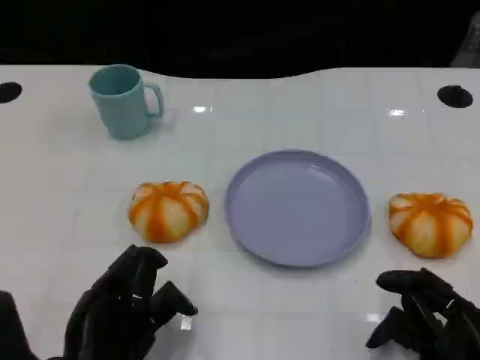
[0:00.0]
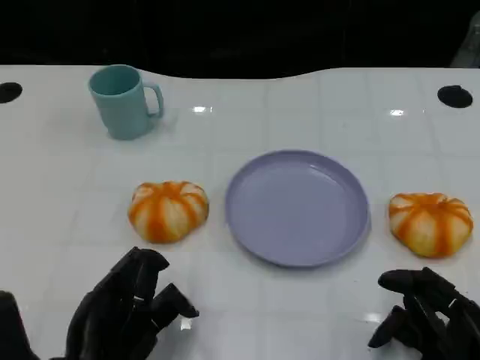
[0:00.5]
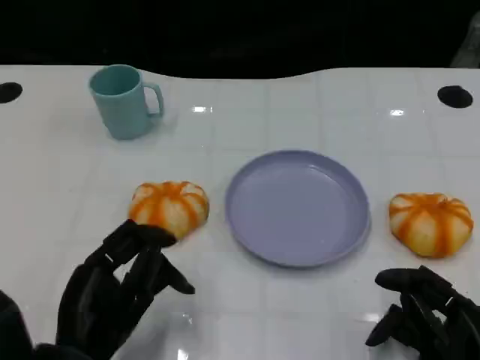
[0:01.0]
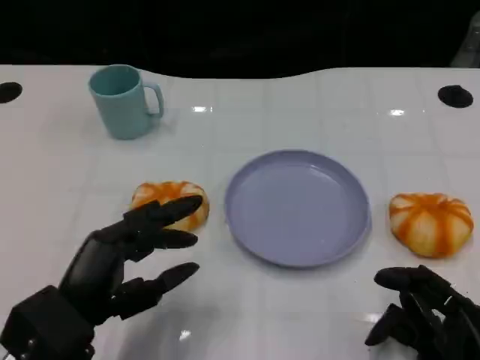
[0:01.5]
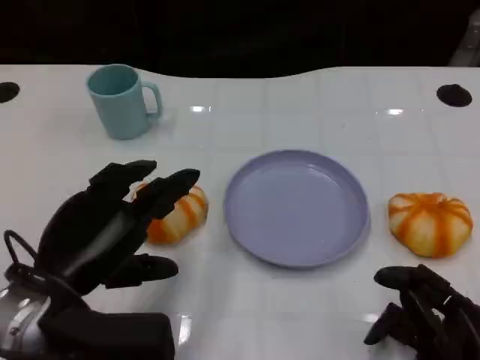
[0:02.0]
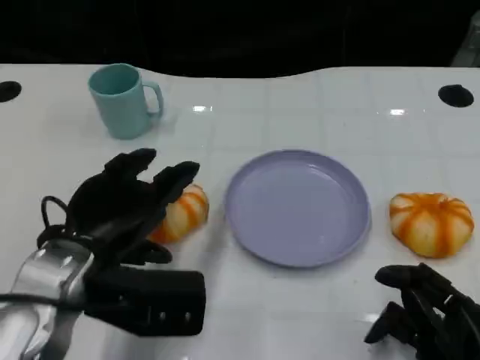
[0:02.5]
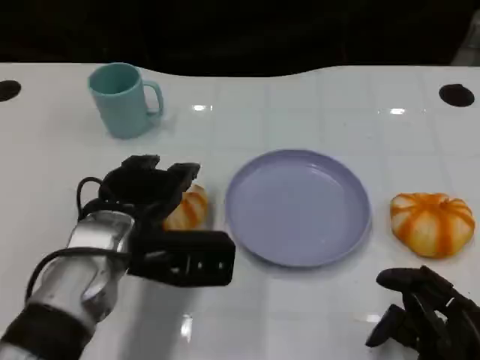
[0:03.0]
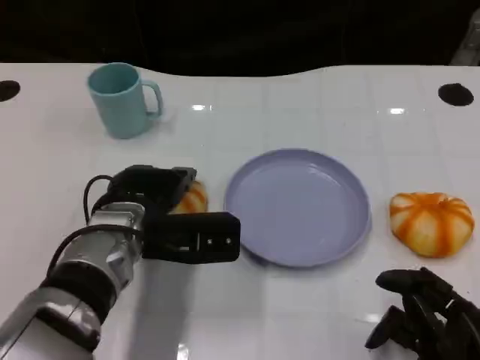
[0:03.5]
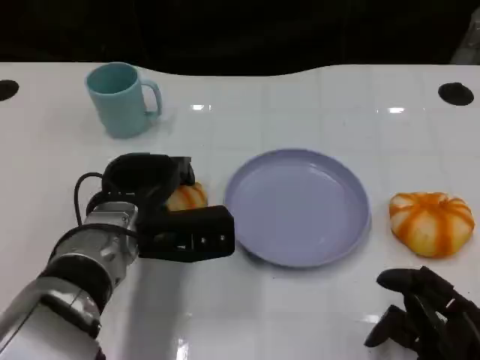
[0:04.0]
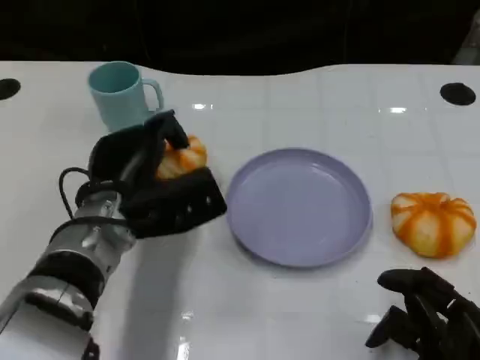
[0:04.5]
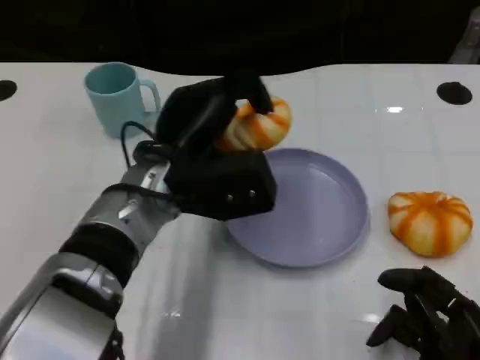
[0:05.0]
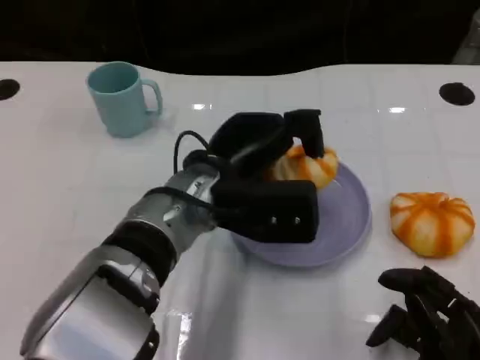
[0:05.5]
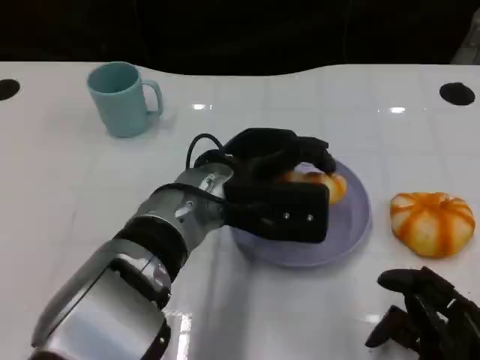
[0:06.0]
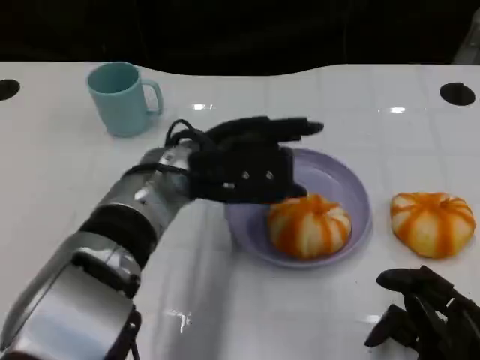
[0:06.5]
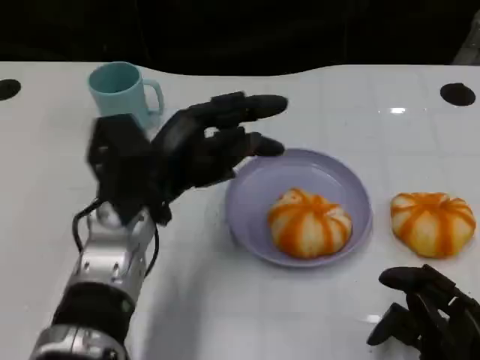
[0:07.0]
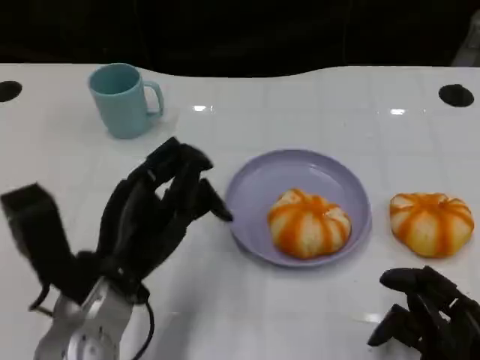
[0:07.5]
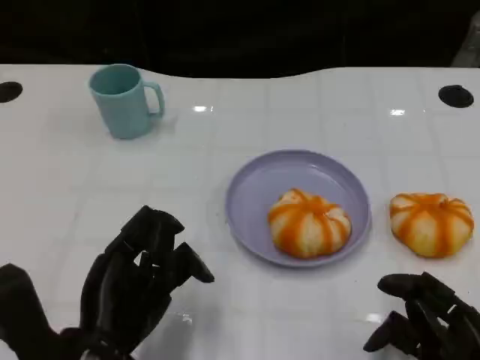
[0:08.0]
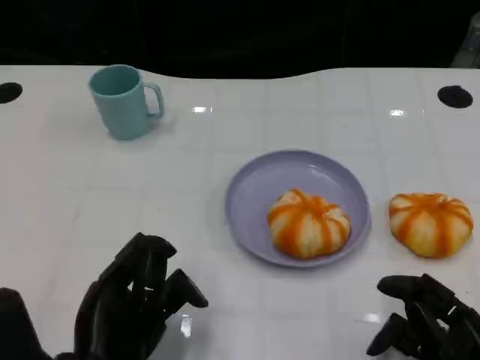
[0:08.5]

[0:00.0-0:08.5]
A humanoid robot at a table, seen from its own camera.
Task of the whole recording: Grasp the bread from the table and place it into the plate.
0:00.0 to 0:02.0: The left hand goes roughly 5 cm upward.
0:02.0 to 0:04.0: The left hand heads forward and to the right, covering roughly 10 cm.
0:04.0 to 0:06.5: The left hand is displaced upward and to the right by about 10 cm.
0:06.5 to 0:08.5: The left hand shifts approximately 20 cm backward, to the left and downward.

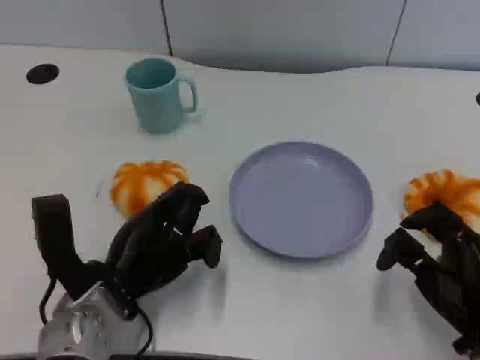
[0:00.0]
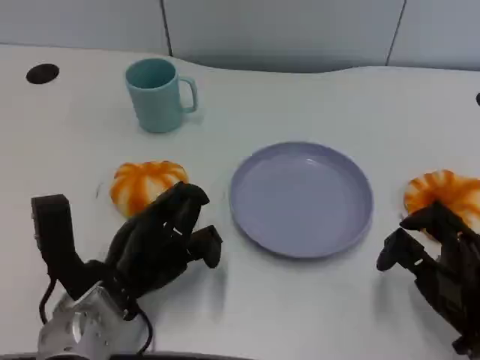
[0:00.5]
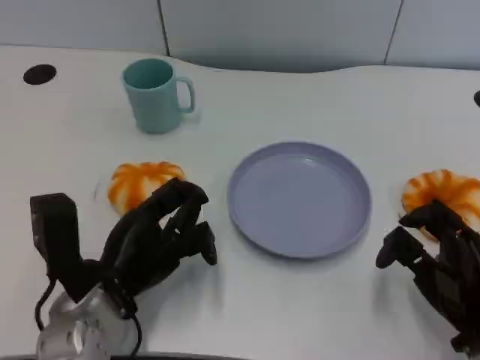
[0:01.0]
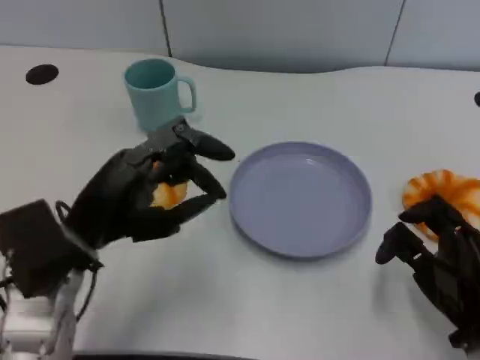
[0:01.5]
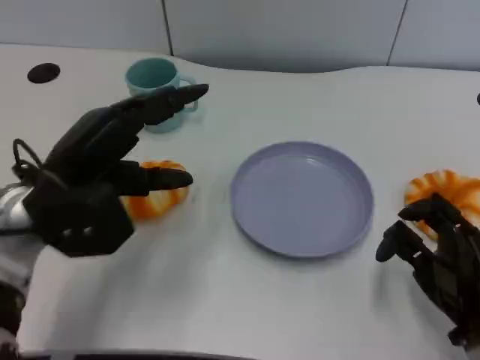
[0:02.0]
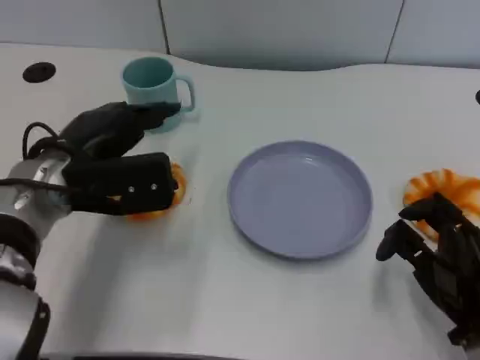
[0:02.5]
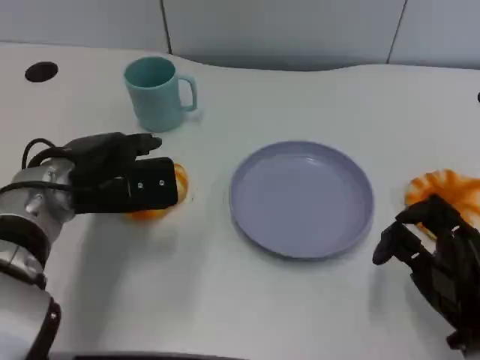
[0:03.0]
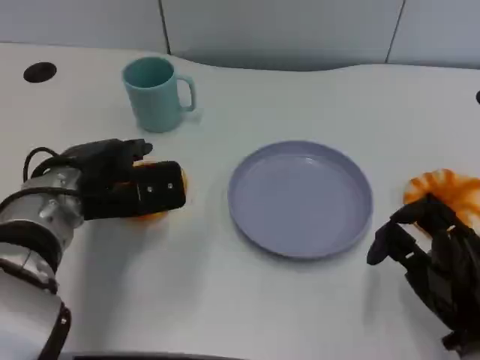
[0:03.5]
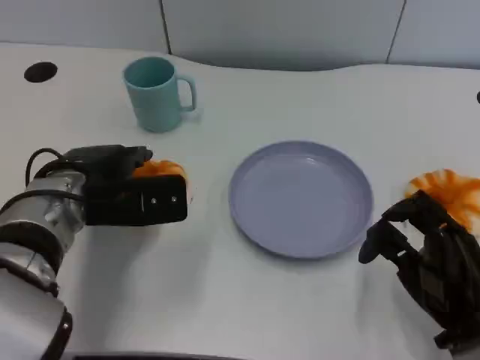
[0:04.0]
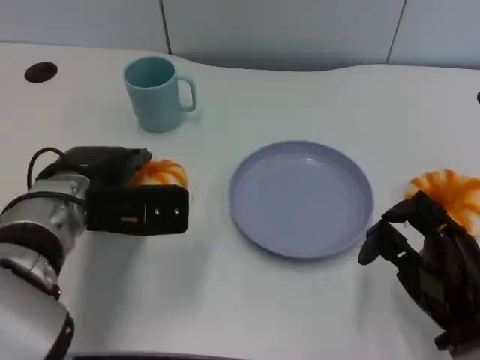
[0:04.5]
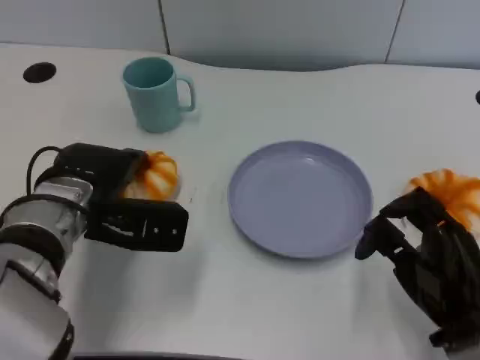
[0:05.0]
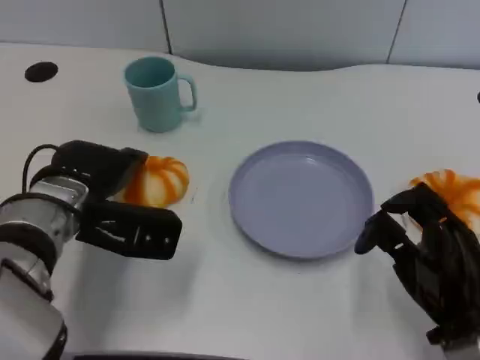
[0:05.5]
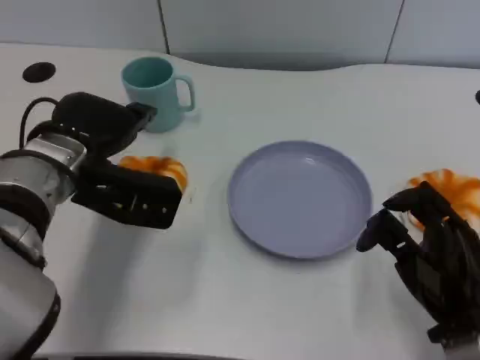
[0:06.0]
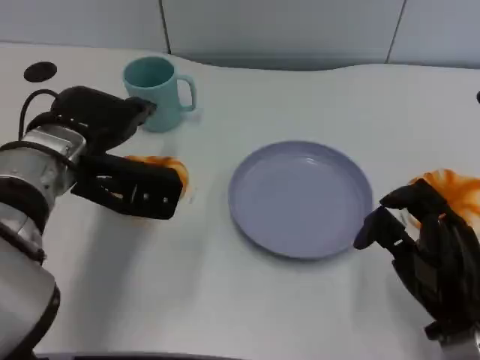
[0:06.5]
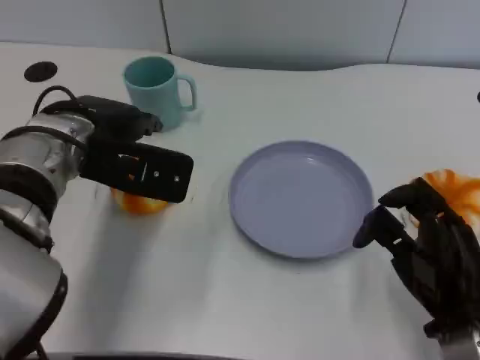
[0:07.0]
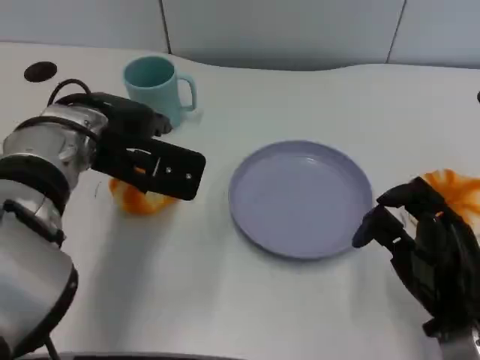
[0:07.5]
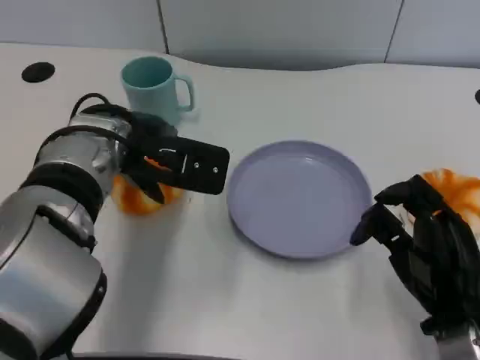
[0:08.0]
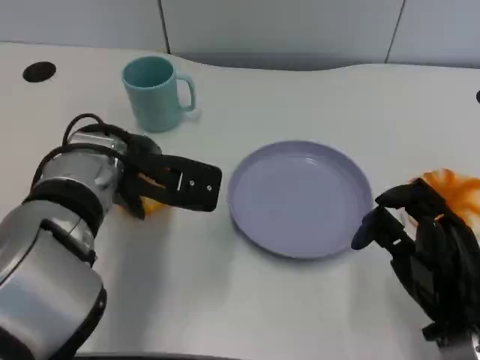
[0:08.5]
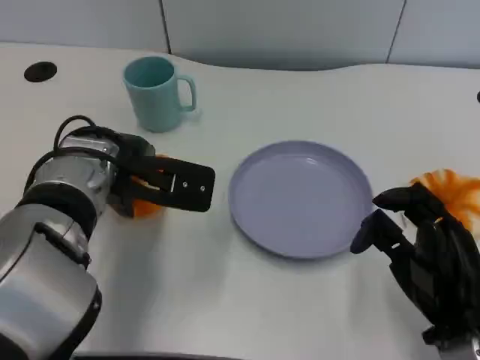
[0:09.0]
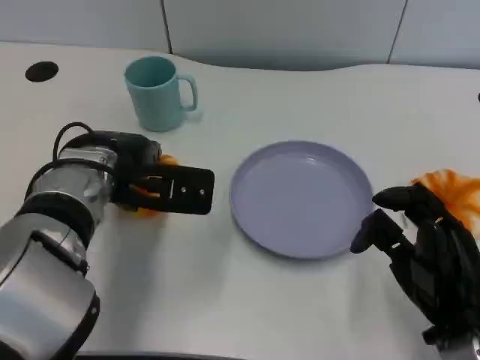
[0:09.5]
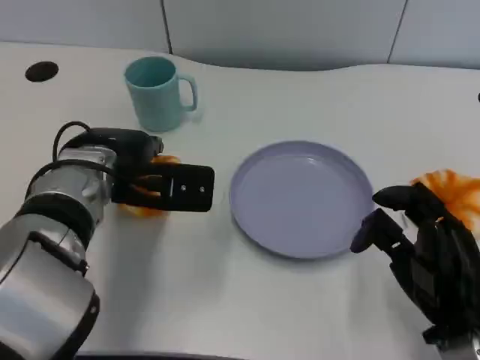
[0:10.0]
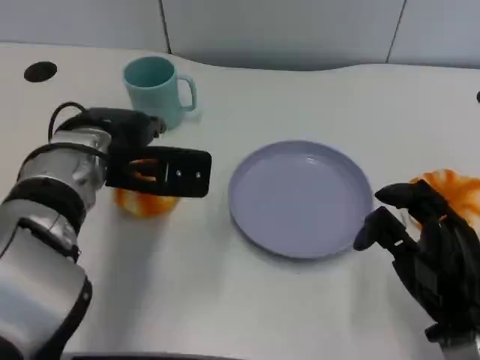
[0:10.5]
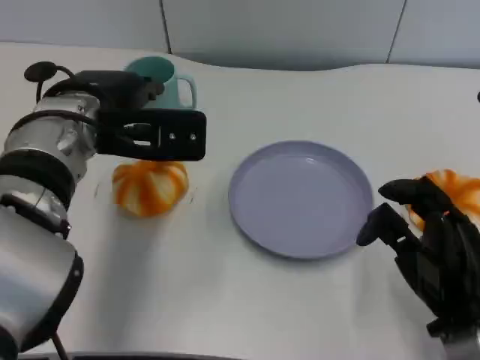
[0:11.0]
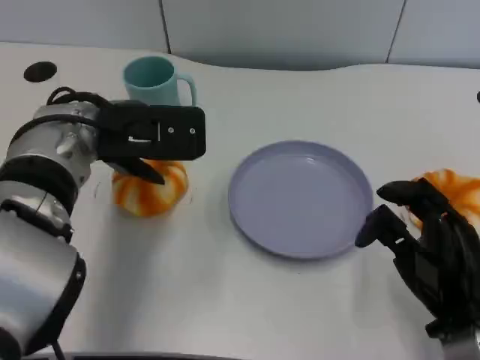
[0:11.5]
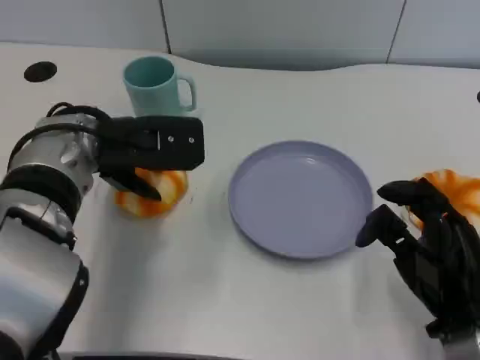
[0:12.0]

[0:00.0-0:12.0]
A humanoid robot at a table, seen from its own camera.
Task of the whole recording: Grasp the bread from the table and place it into the plate.
0:00.0 to 0:02.0: The left hand moves upward, approximately 10 cm.
0:08.0 to 0:12.0: The hands make only small movements.

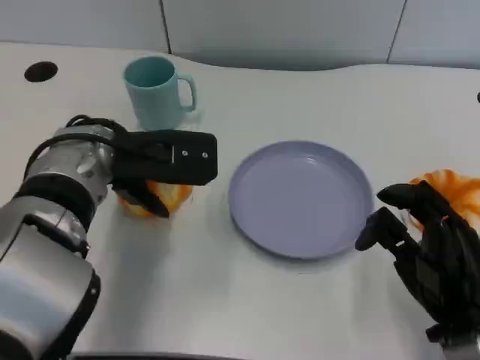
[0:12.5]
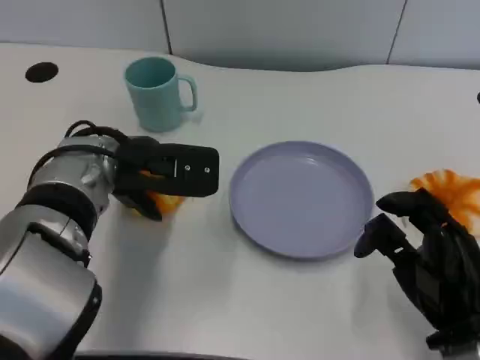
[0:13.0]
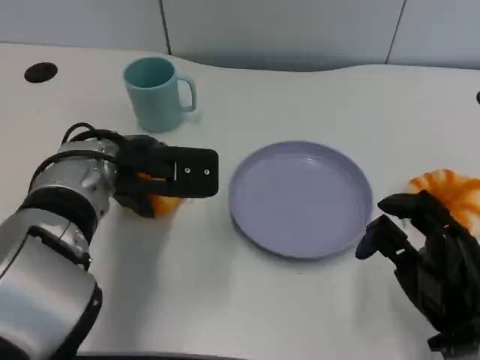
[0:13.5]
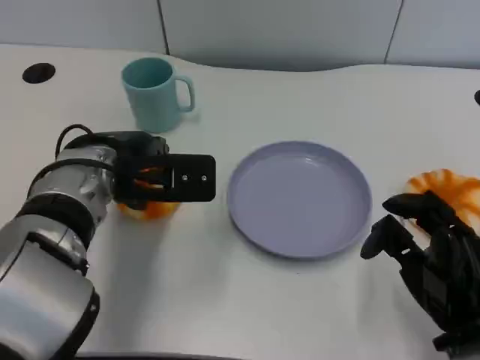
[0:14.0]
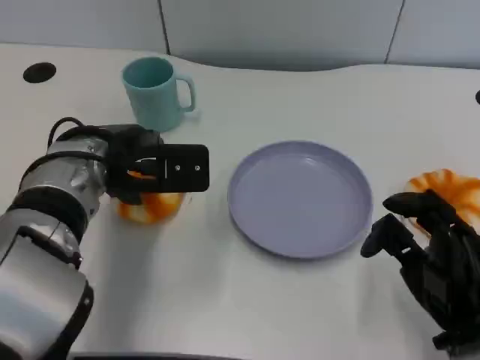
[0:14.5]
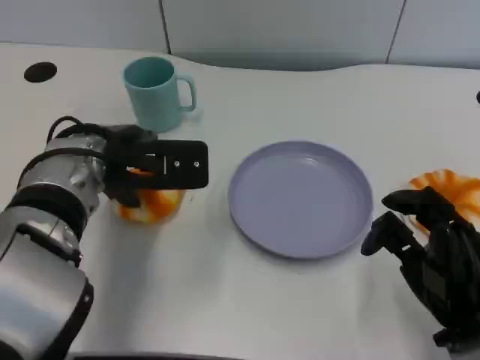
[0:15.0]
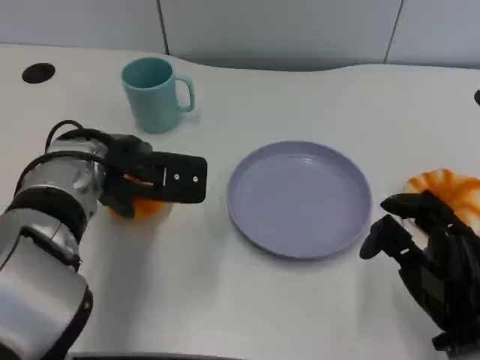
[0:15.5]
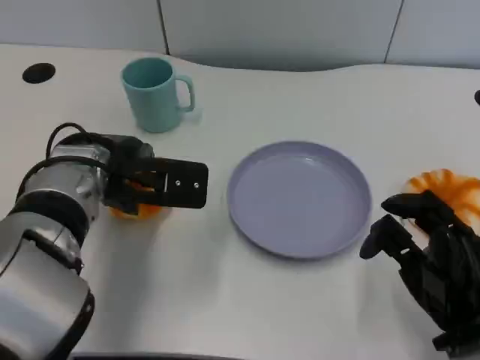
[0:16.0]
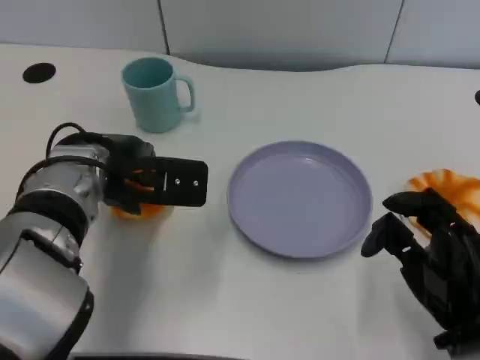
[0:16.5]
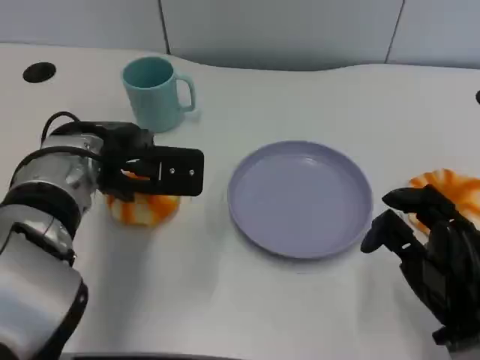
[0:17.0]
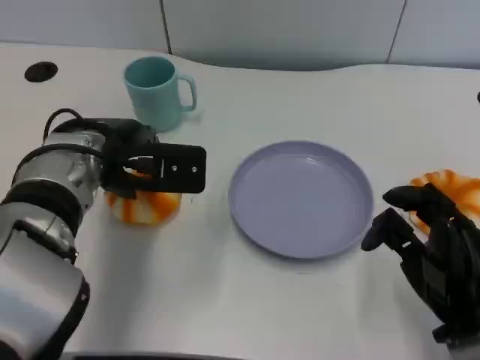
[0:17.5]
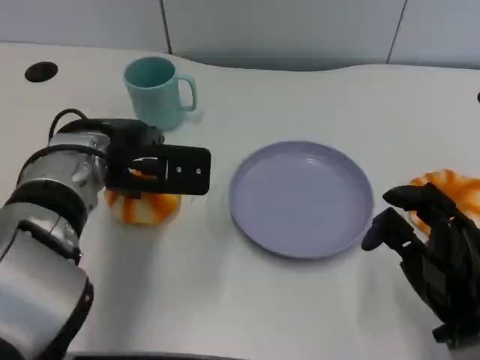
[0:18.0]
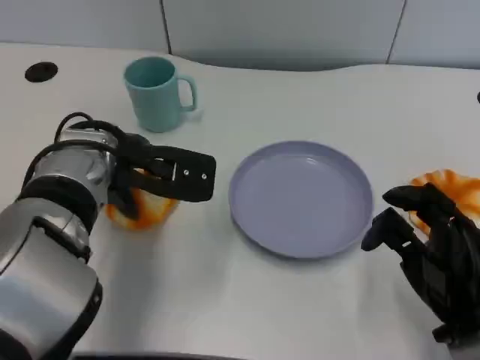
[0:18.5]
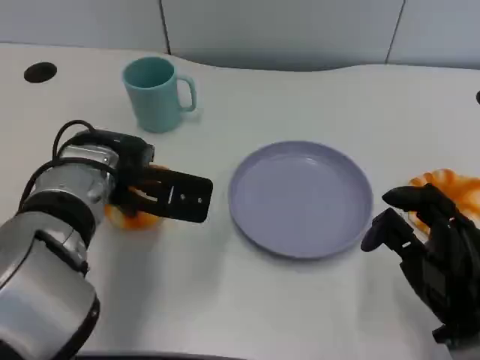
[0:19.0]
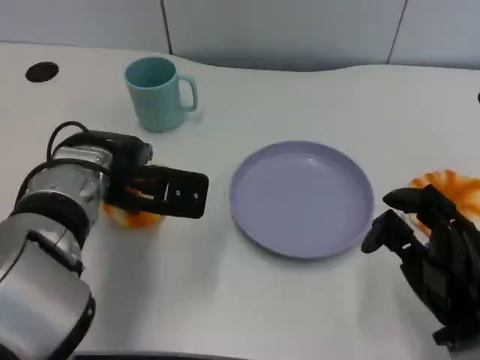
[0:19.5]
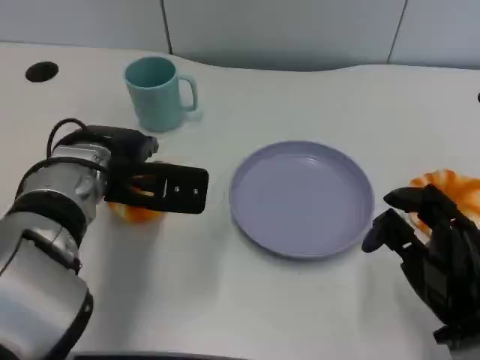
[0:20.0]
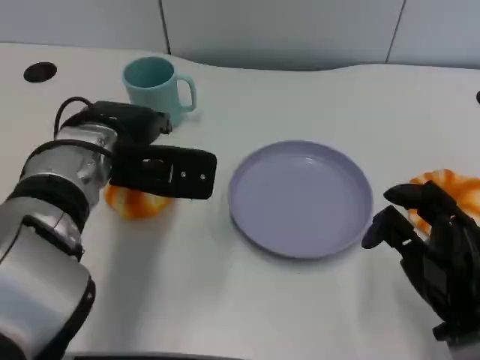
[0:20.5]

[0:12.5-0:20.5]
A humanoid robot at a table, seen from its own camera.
Task of the whole recording: Grasp the bread from the table and place it into the plate.
0:12.5 to 0:18.5: The hands make only small movements.
0:18.5 to 0:20.5: There are only small adjustments of the hands.
